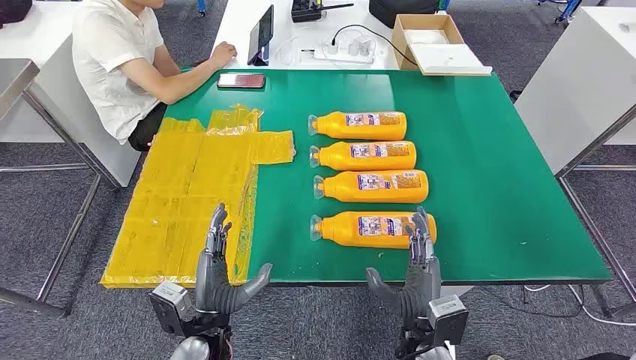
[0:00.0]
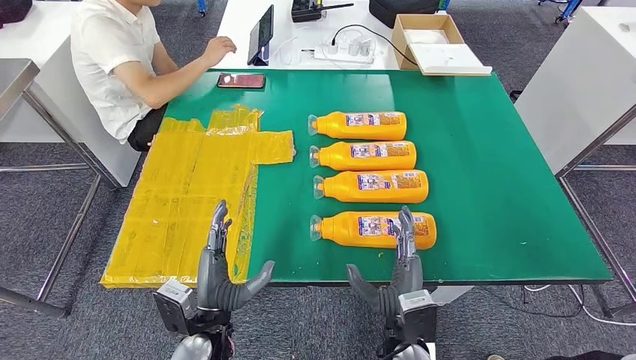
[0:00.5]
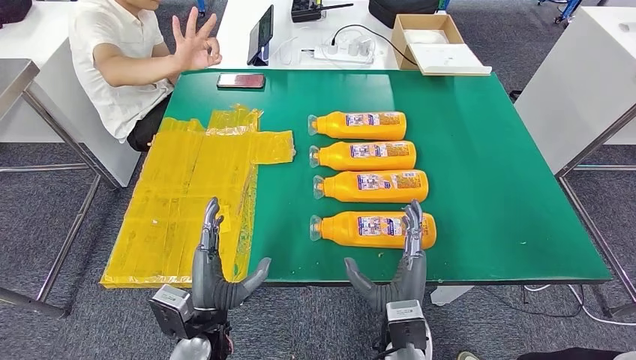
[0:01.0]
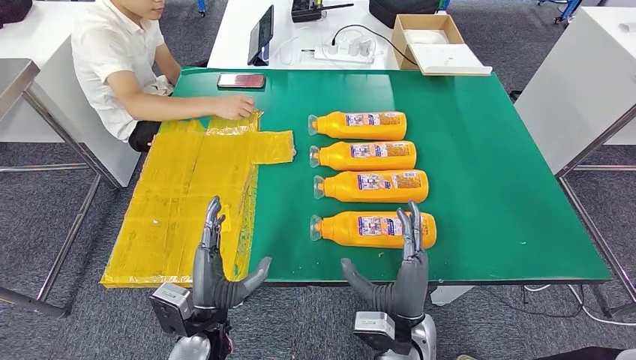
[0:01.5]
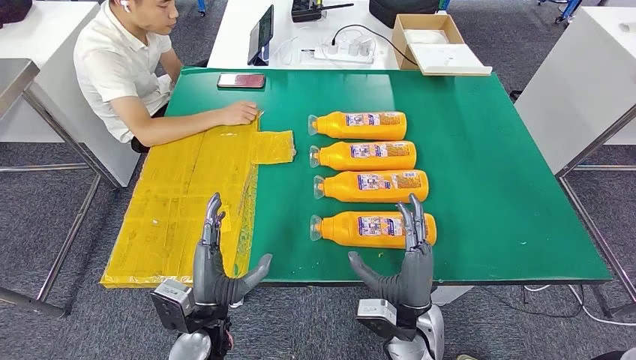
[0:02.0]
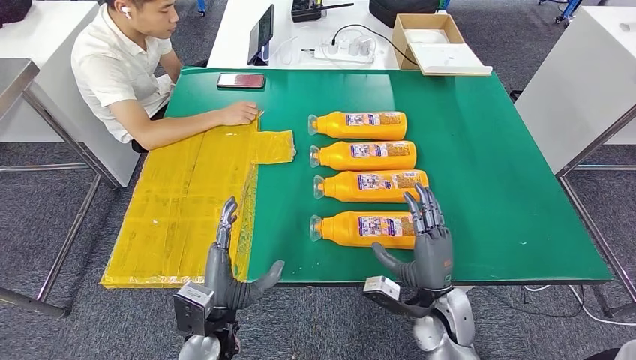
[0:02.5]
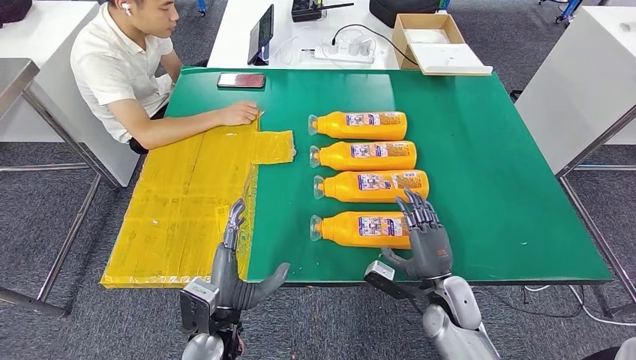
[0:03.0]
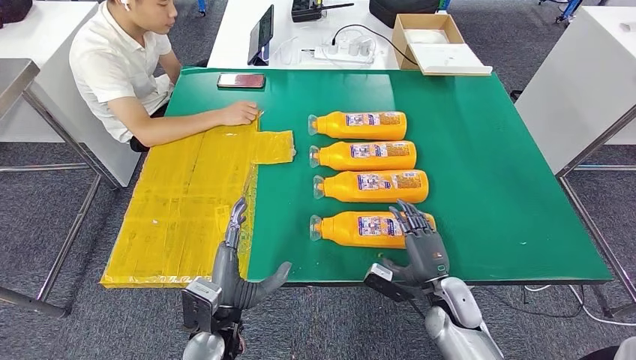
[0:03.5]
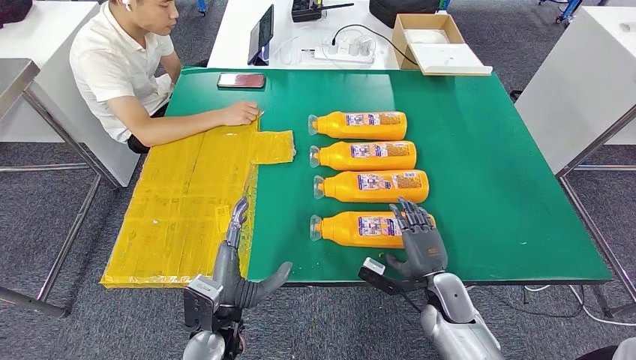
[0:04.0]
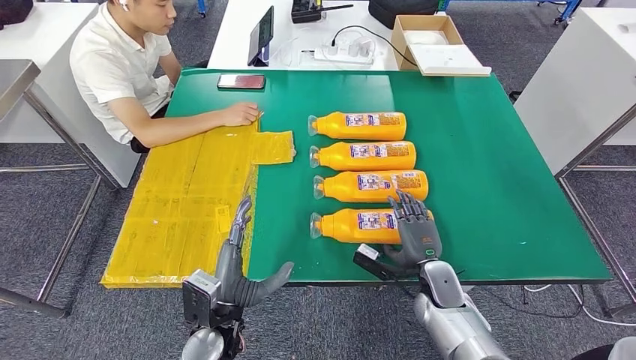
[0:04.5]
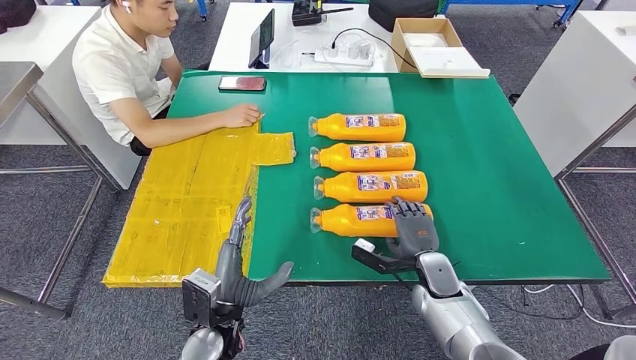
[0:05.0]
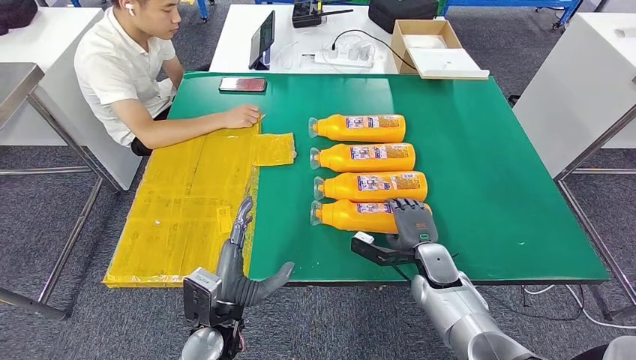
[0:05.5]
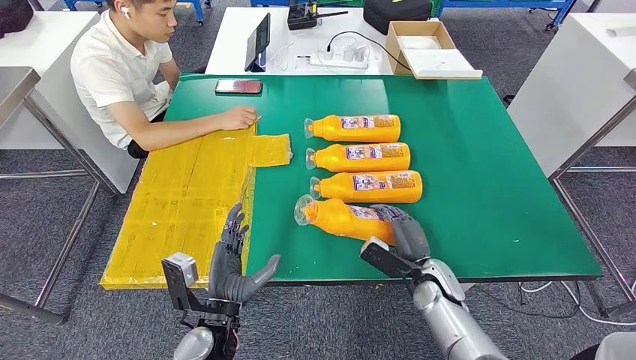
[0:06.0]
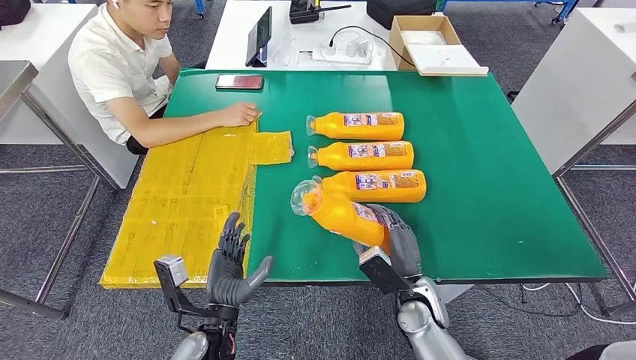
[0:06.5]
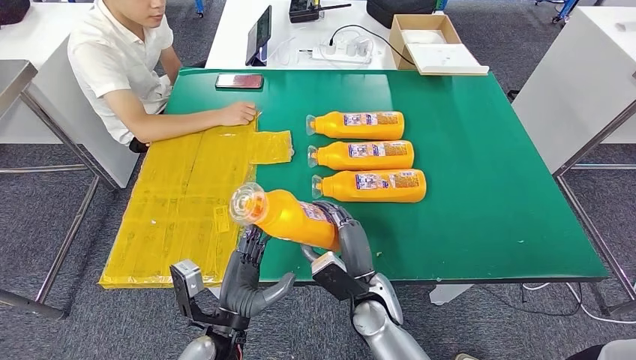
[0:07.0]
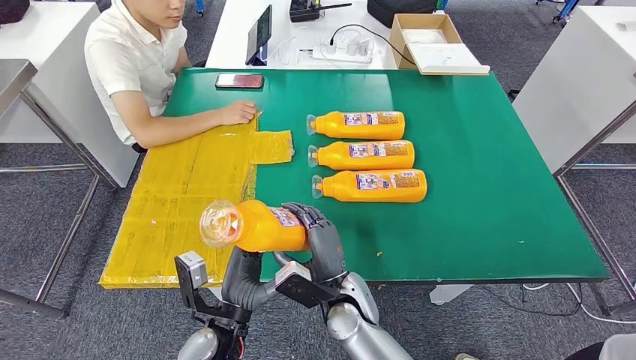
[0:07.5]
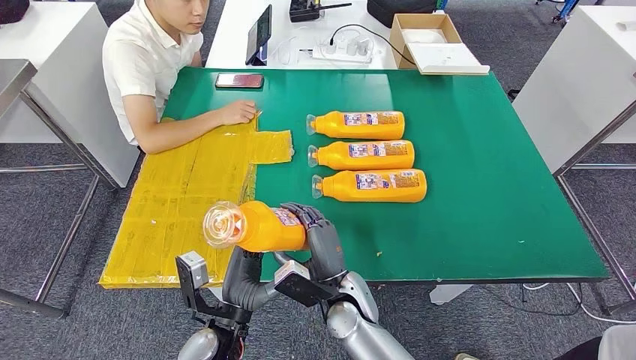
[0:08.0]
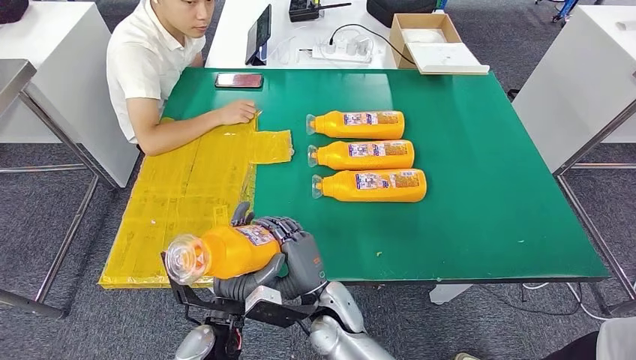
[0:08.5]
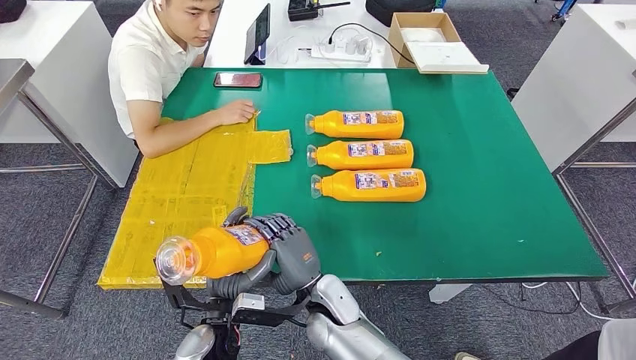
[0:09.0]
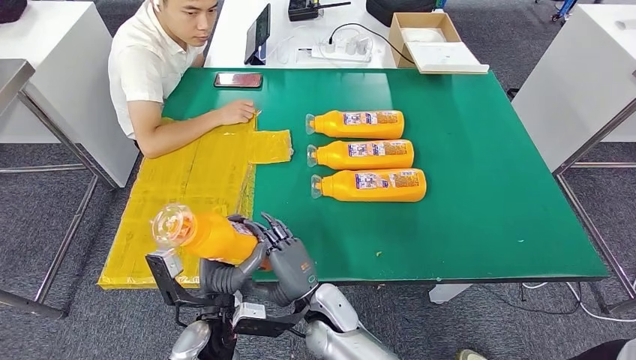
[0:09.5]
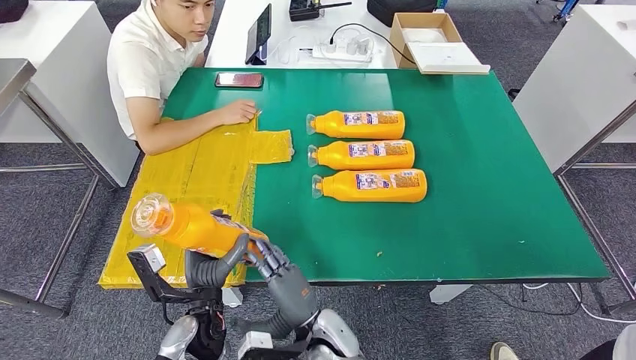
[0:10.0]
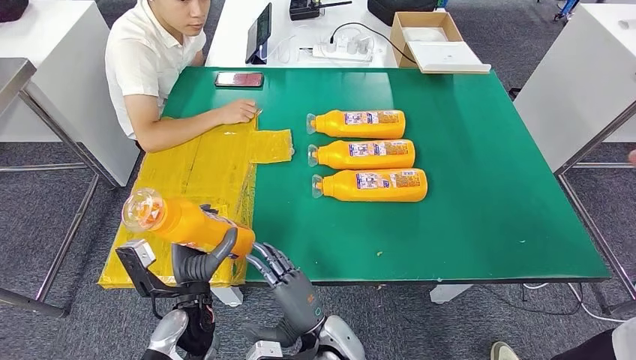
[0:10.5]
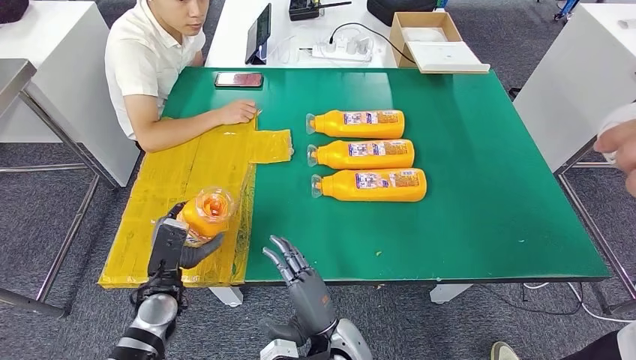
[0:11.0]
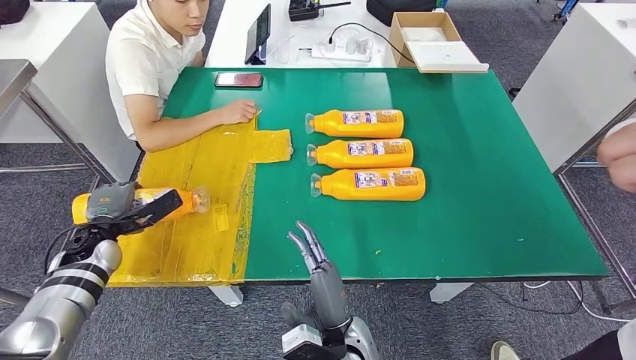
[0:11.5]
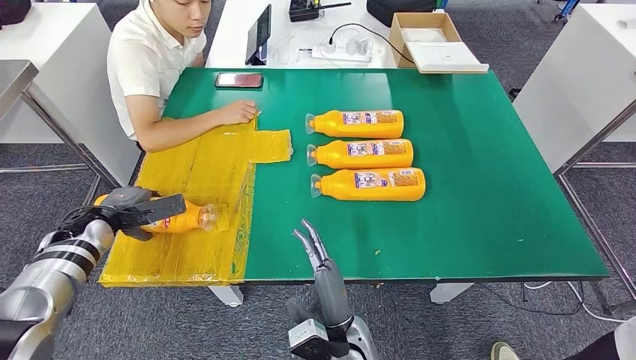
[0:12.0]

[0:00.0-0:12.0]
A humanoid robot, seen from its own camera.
Step, 0:00.0 to 0:06.5: Take the bottle from the table.
0:02.0 to 0:04.0: The right hand goes approximately 10 cm to the right and forward.
0:08.0 to 0:10.0: The right hand moves backward, some 5 cm.
0:10.0 to 0:12.0: The left hand is displaced to the left and forward by roughly 30 cm.

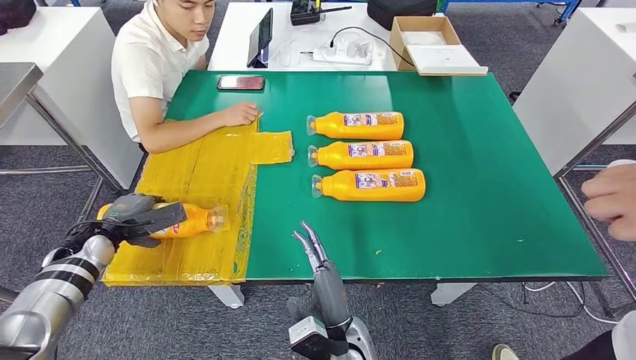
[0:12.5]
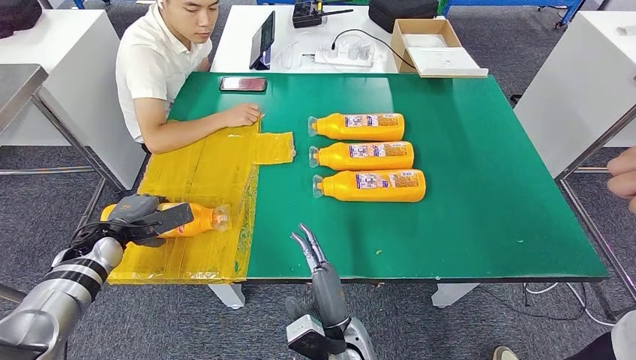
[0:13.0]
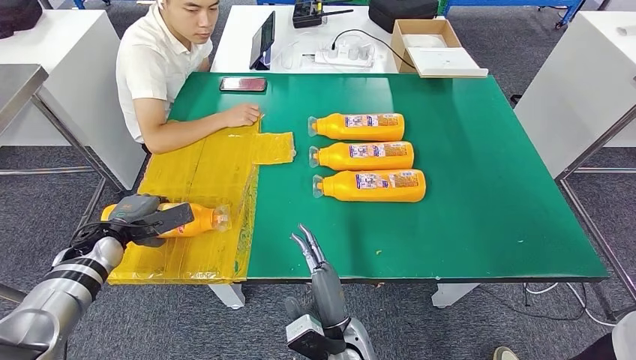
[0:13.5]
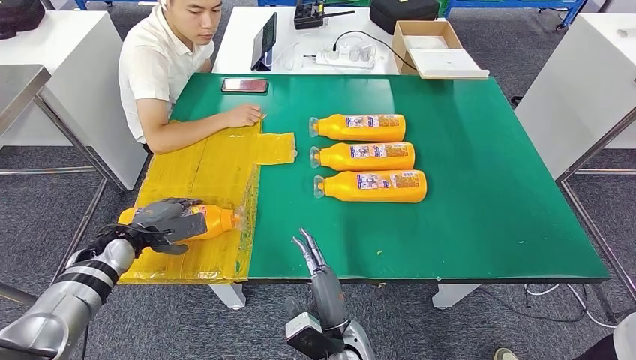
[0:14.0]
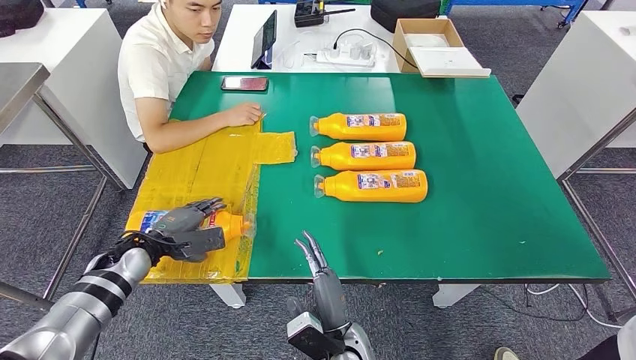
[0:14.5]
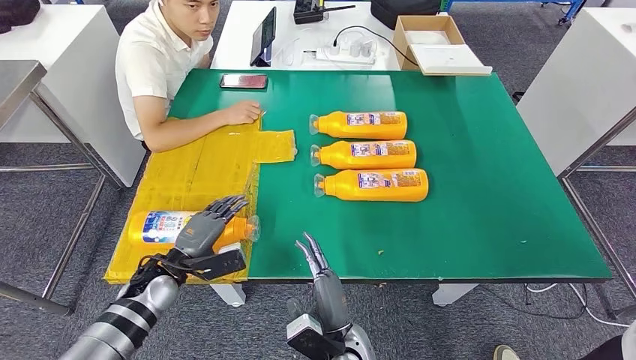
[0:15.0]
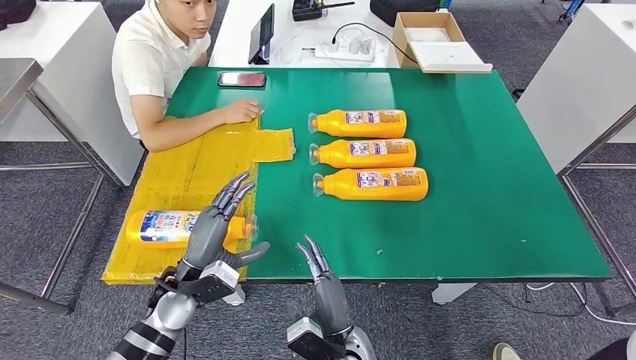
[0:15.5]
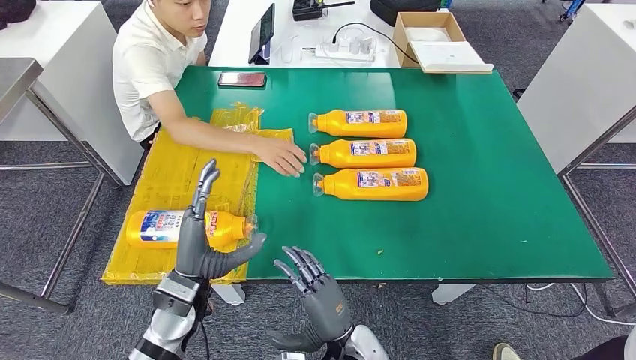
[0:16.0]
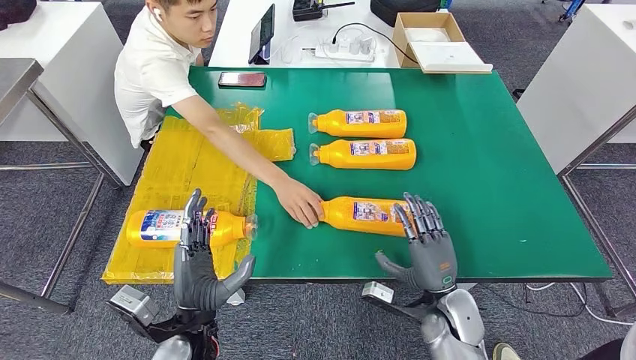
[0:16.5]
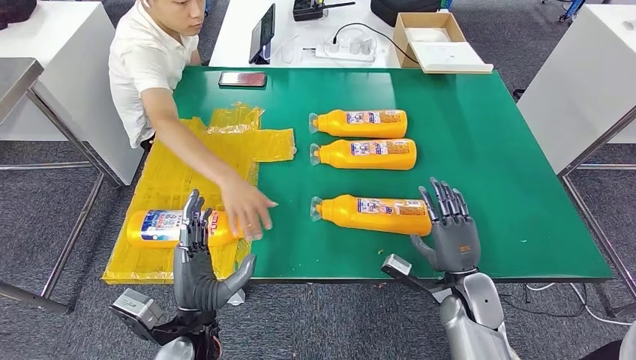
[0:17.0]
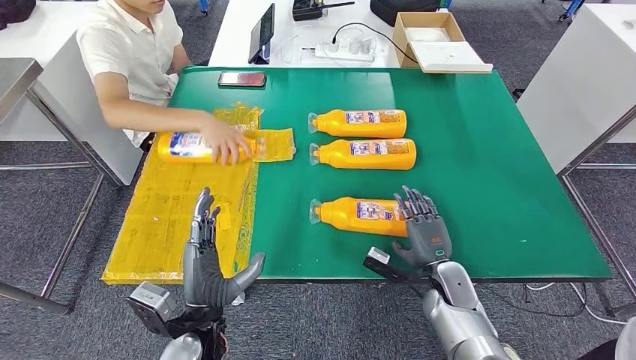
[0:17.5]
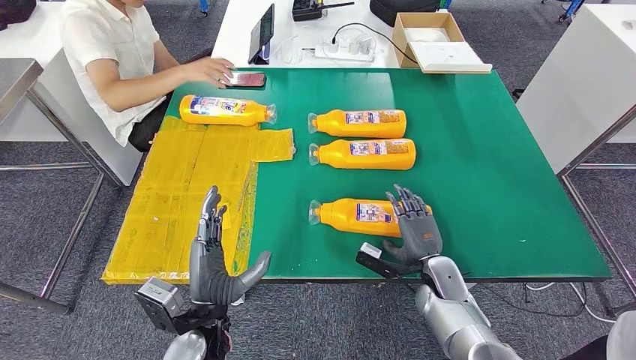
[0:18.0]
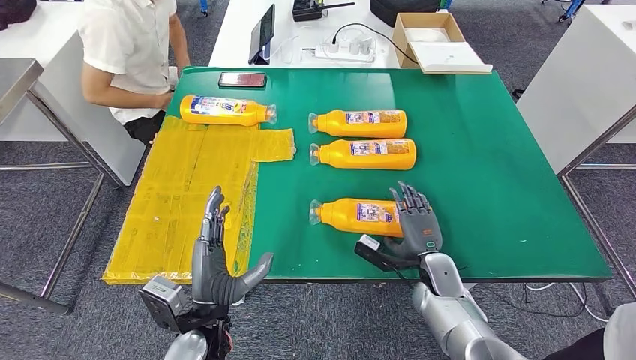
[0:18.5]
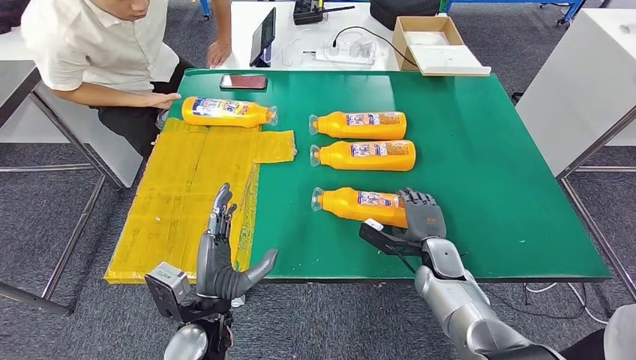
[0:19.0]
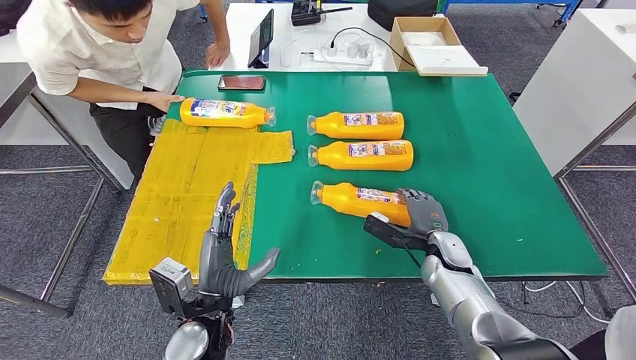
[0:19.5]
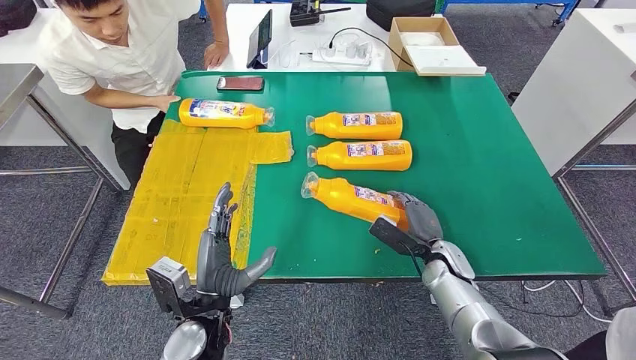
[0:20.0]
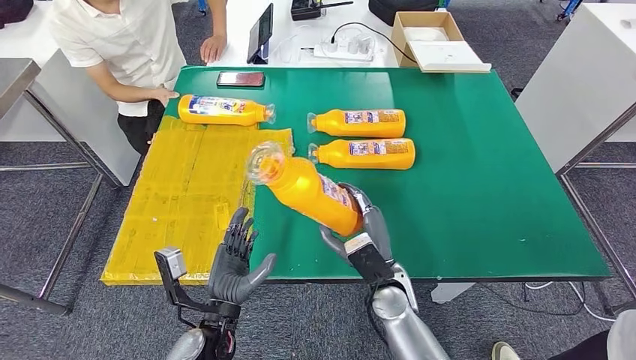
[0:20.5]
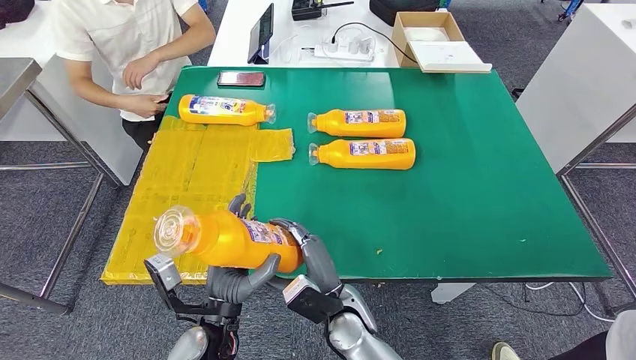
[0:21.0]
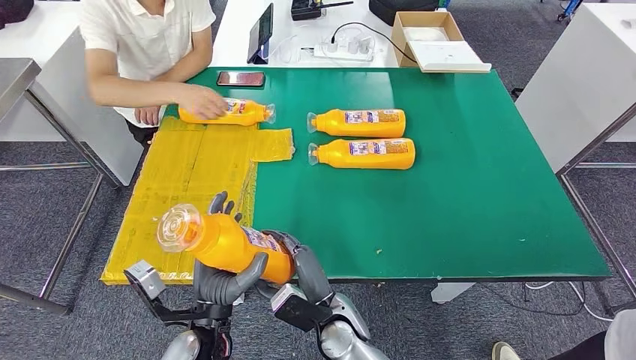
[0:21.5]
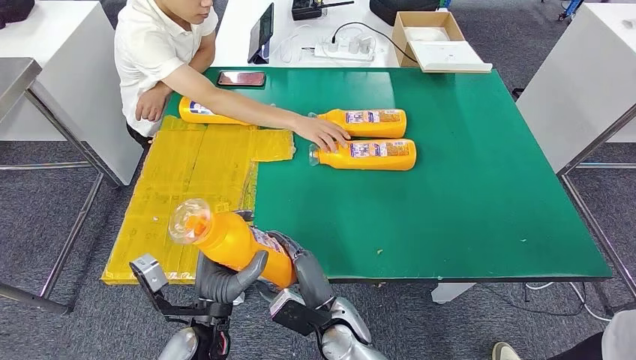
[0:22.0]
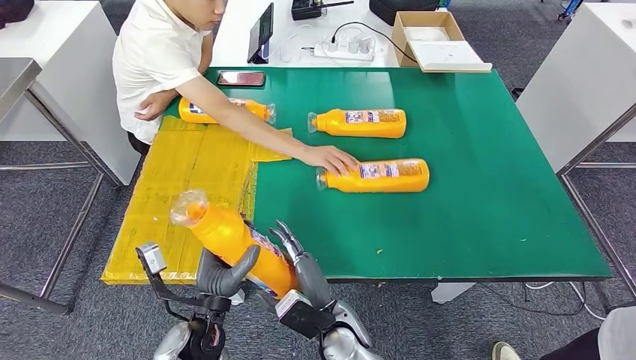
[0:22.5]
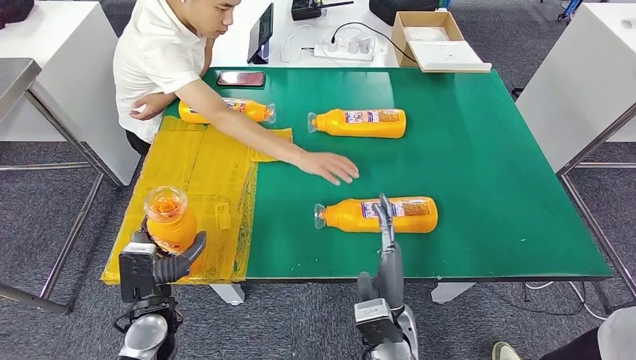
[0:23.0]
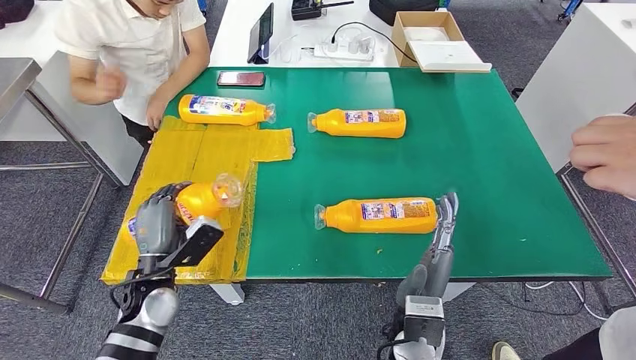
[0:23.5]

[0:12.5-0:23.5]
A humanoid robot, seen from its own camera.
Step, 0:14.0 to 0:20.5: Pick up the bottle from the table.
